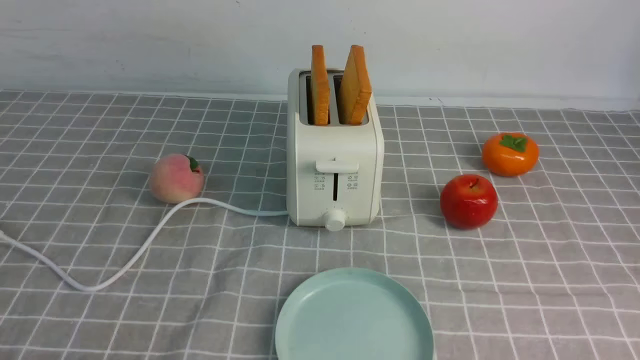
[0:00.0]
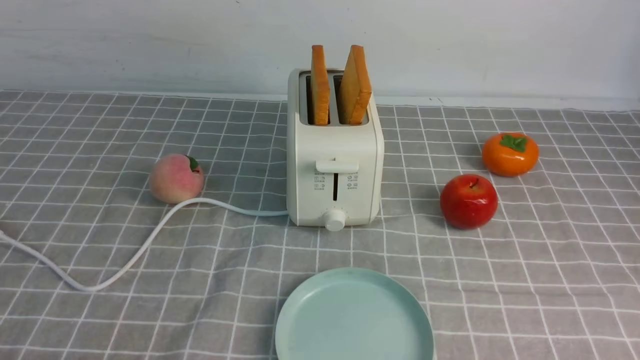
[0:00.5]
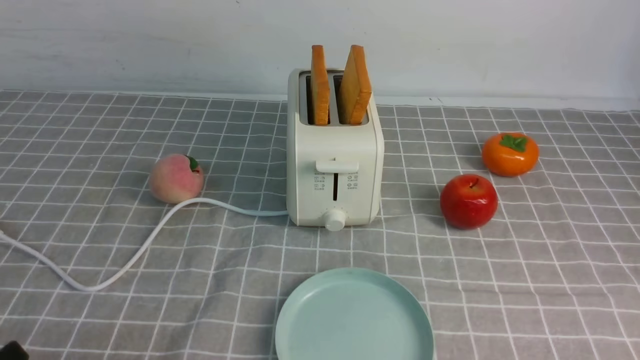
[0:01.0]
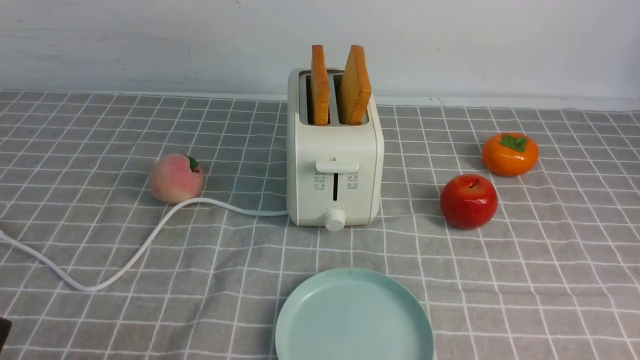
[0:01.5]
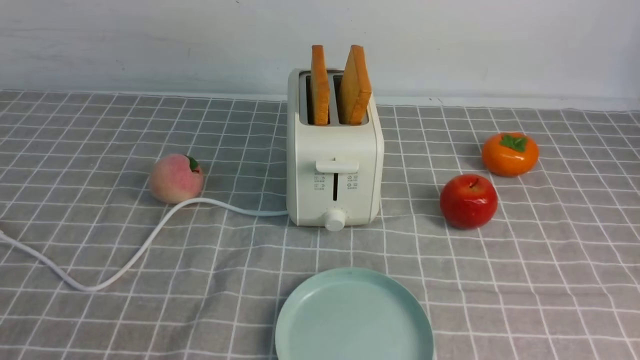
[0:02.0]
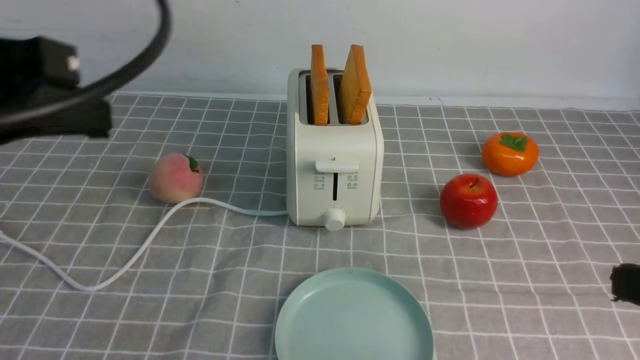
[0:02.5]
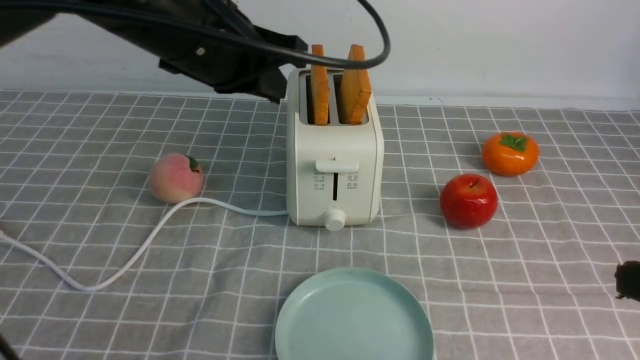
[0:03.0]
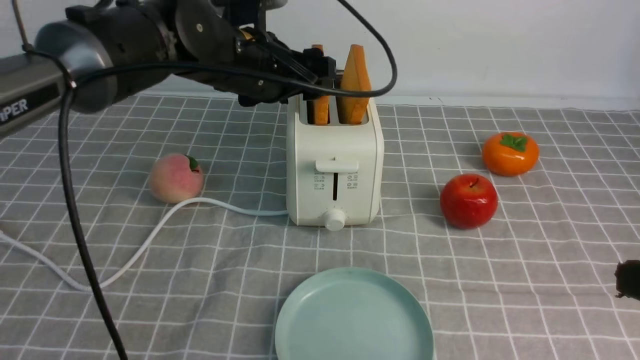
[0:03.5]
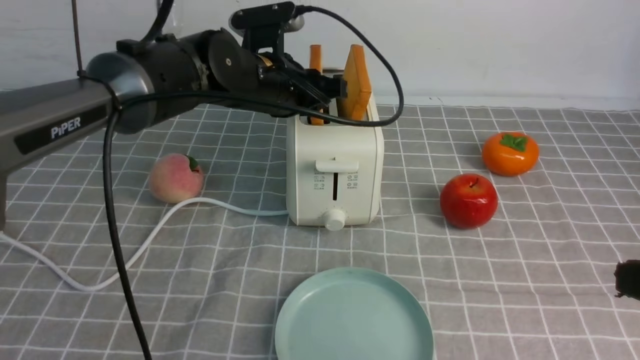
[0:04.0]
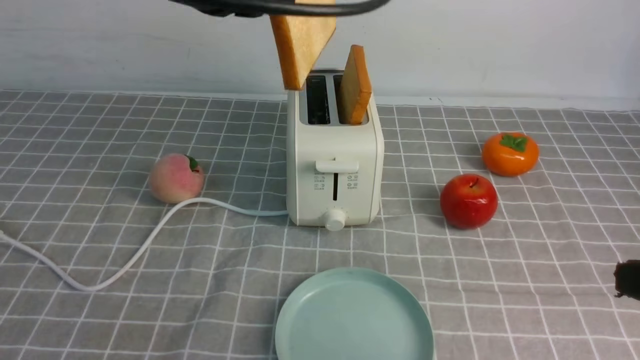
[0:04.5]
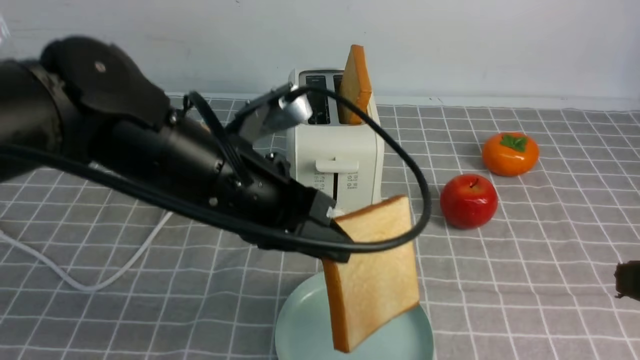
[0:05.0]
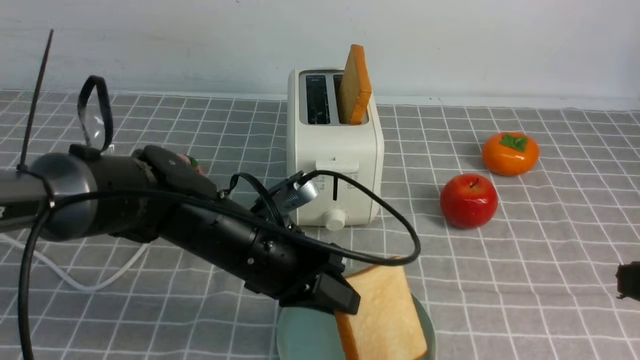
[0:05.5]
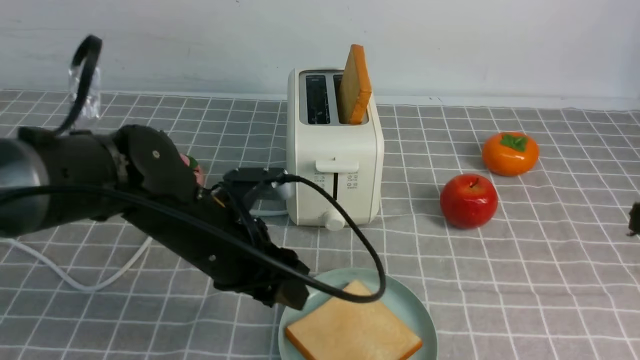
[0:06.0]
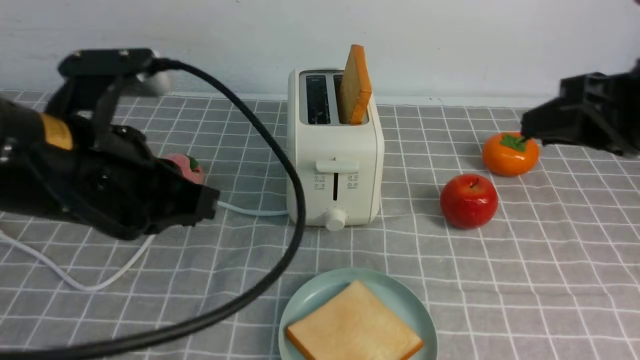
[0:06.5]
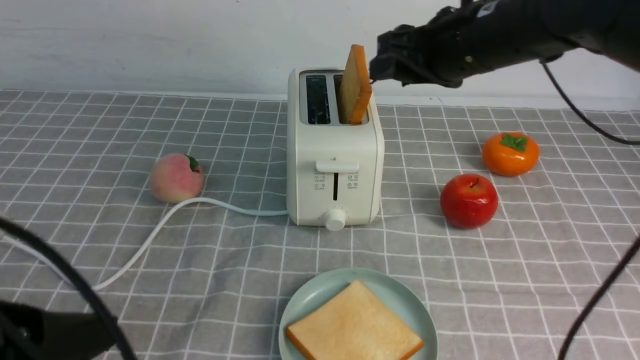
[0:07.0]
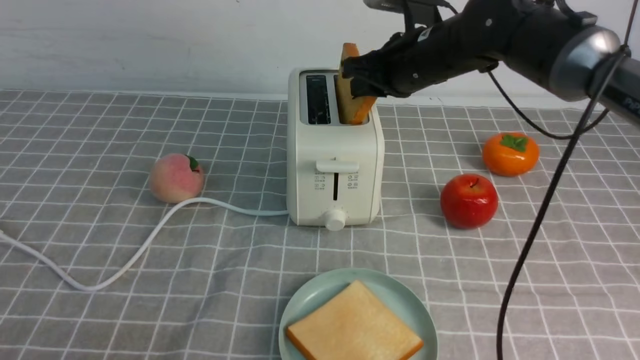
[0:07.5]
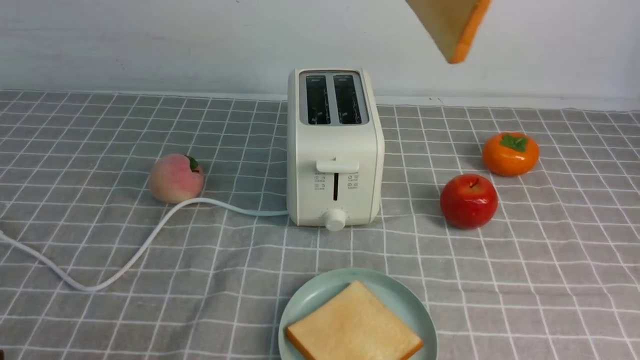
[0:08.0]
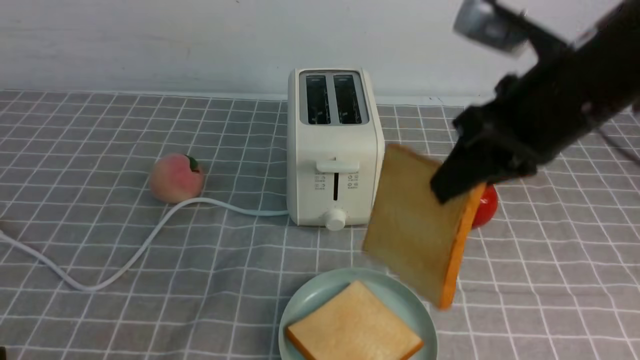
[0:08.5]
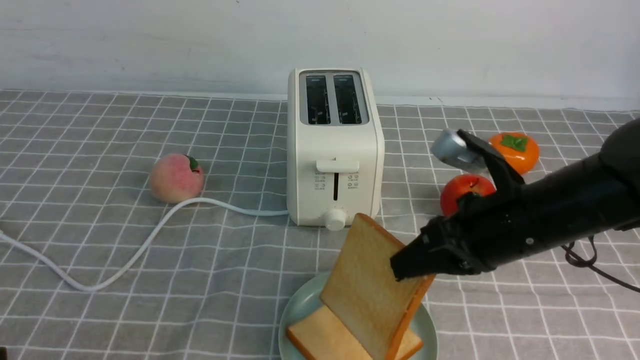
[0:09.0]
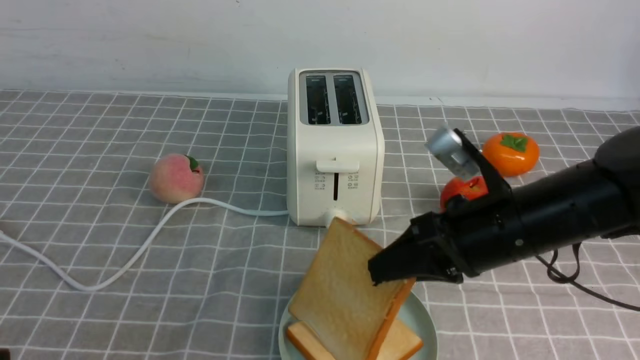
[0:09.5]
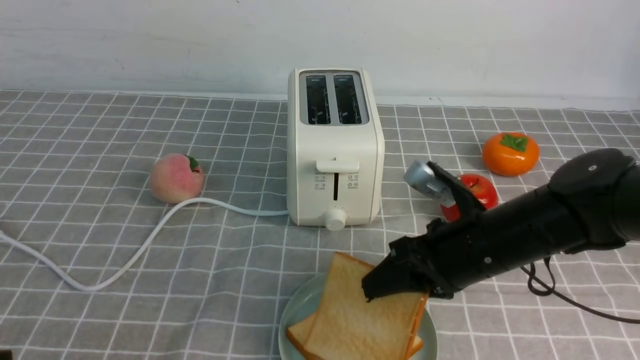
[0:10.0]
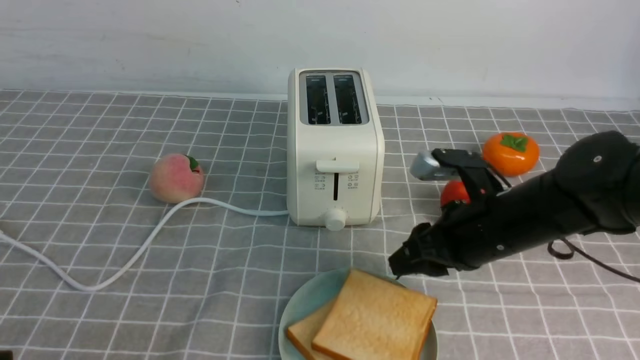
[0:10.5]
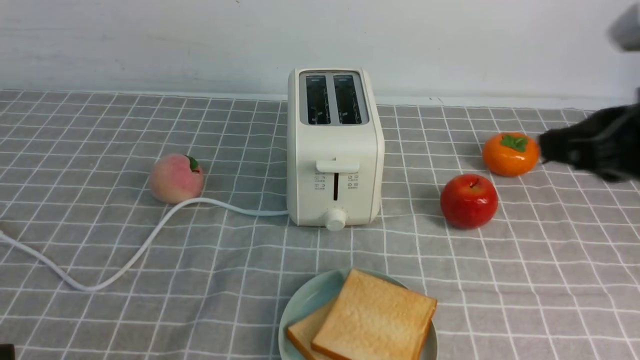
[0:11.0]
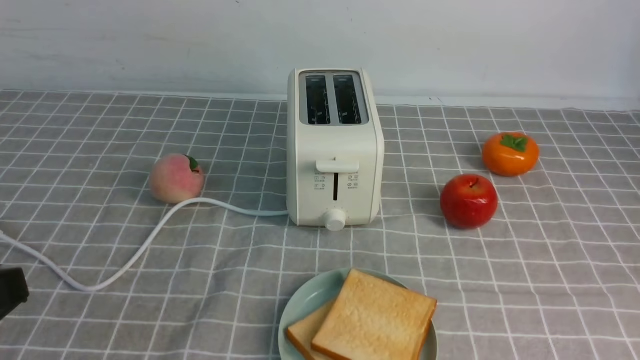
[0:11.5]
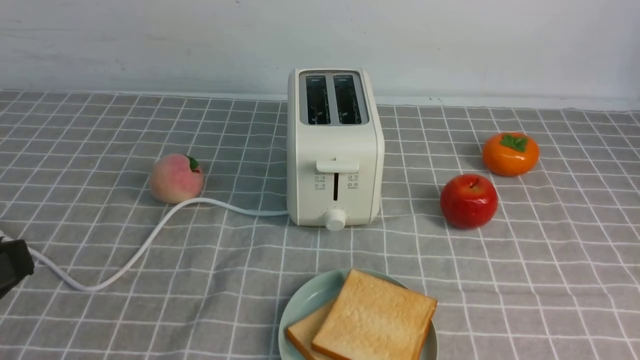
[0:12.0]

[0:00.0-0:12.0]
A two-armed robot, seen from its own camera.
Task of the whole recording: take toasted bread from bread machine on grey coffee table place on plate.
Step, 0:00.0 to 0:04.0: use the left arm to take out a slice of bread.
Step, 0:04.5 to 0:06.0: use the left arm to put a slice of bread into the empty plate.
Step, 0:06.5 to 0:07.5: use the right arm to take out a slice of bread.
Step, 0:08.0 to 0:10.5: use the right arm to put a slice of bread into the plate.
0:02.0 to 0:04.0: The left gripper travels forward and to the right by about 40 cm, and opens up. Meanwhile the right gripper goes roughly 5 cm forward.
0:04.0 to 0:06.0: The left gripper travels backward and downward by about 15 cm. Meanwhile the right gripper opens up.
0:06.0 to 0:08.0: The left gripper travels backward and to the left by about 25 cm, and closes its fingers. Meanwhile the right gripper heads forward, upward and to the left, covering some 25 cm, and opens, then closes again.
0:08.0 to 0:10.0: The right gripper goes approximately 25 cm downward, and opens its fingers.
0:10.0 to 0:12.0: The right gripper shifts roughly 30 cm backward and to the right, and closes.

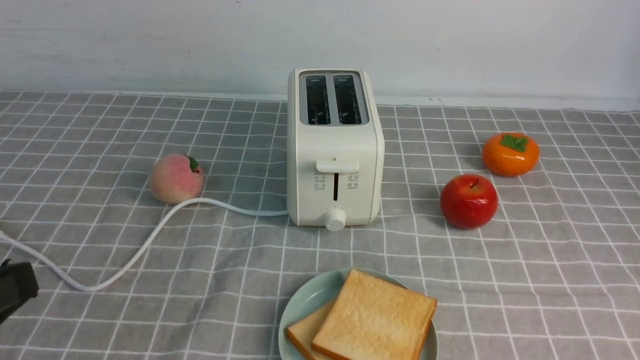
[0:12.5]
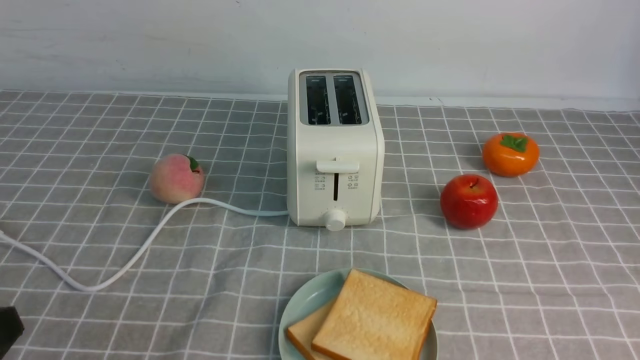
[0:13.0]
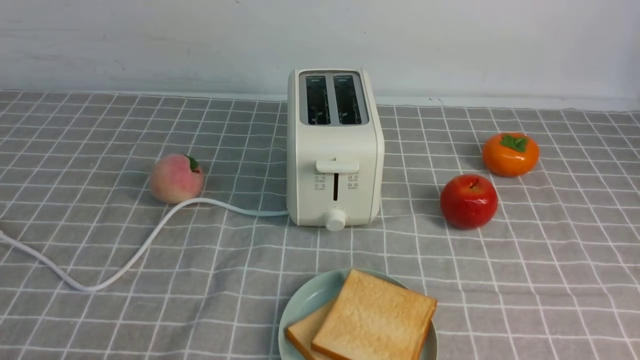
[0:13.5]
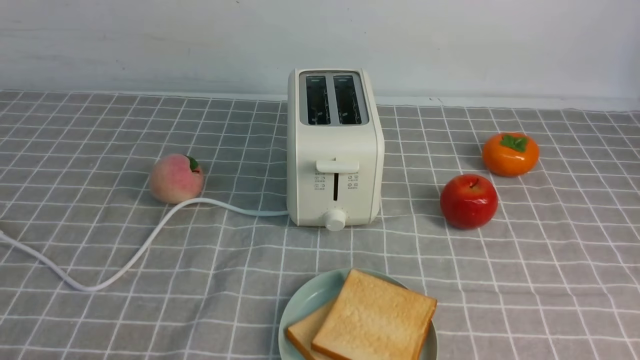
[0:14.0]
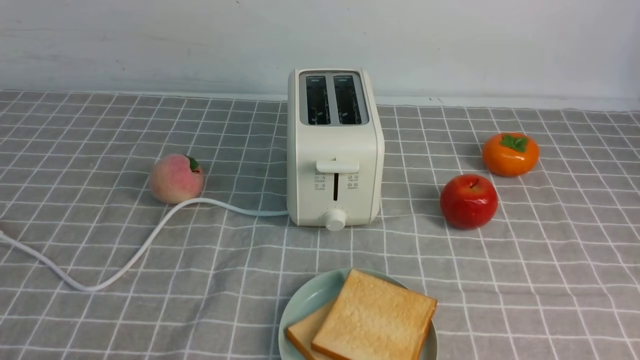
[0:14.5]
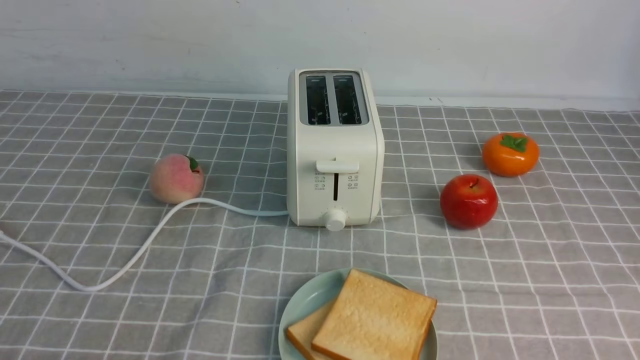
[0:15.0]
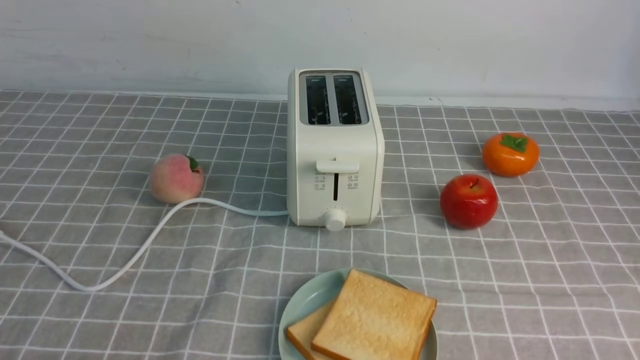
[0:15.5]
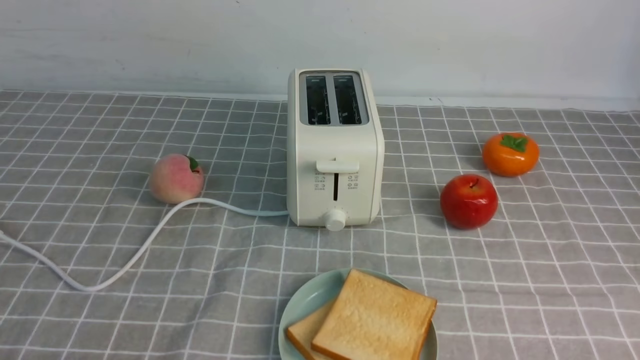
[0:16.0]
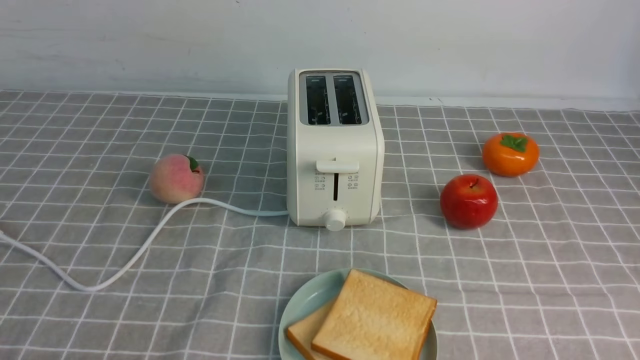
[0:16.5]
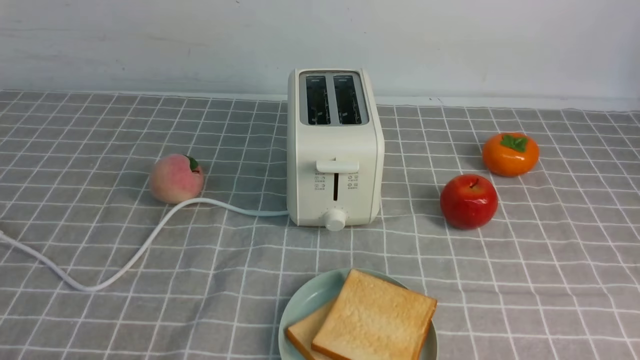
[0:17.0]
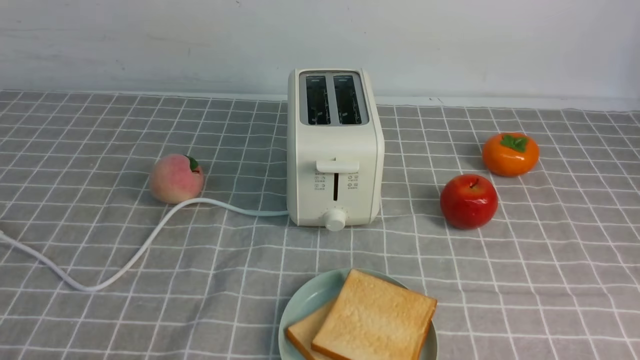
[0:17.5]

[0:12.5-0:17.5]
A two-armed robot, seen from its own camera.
Task of the whole recording: take toasted bread from bread machine on grey coffee table place on plate.
0:12.5 to 0:15.0: The left gripper moves downward, about 15 cm.

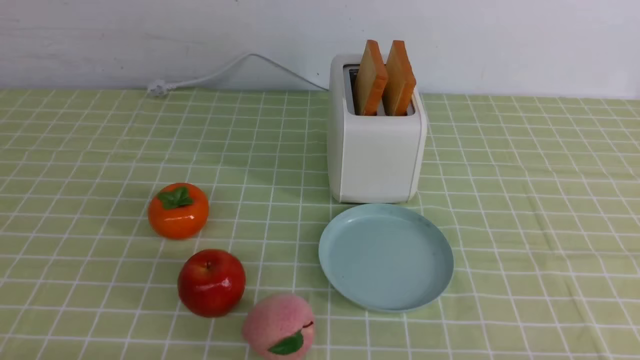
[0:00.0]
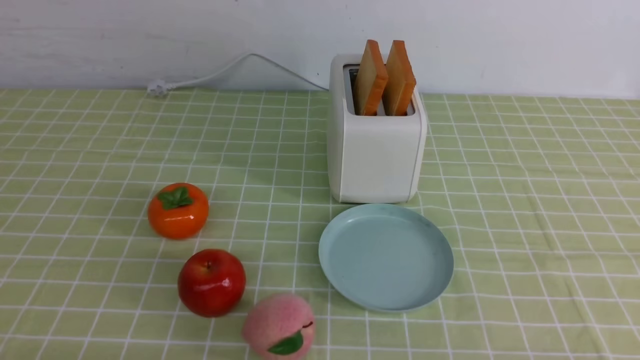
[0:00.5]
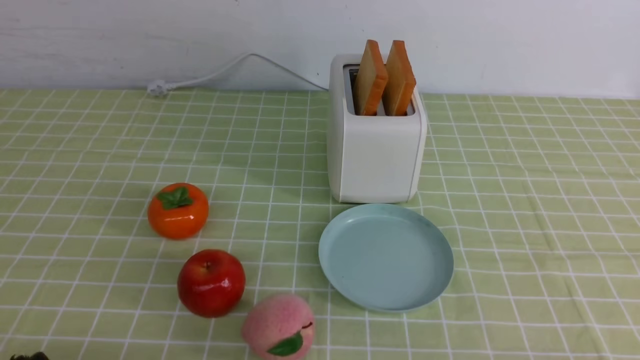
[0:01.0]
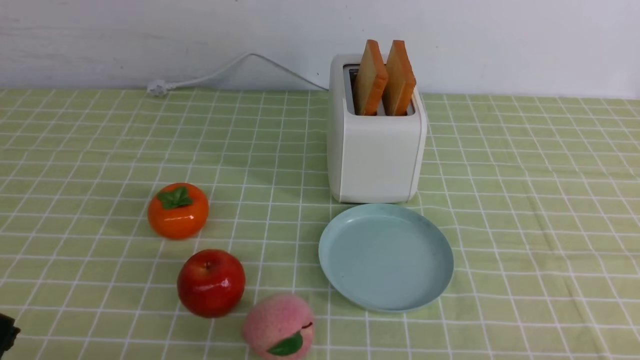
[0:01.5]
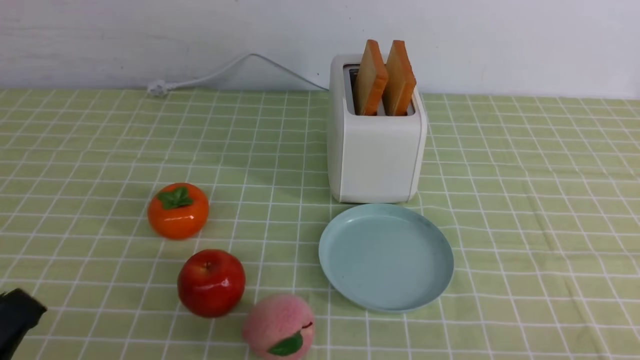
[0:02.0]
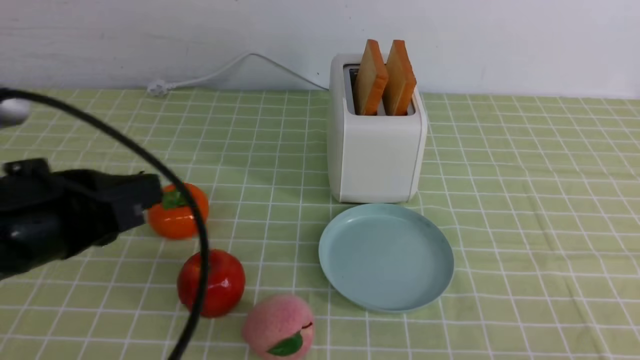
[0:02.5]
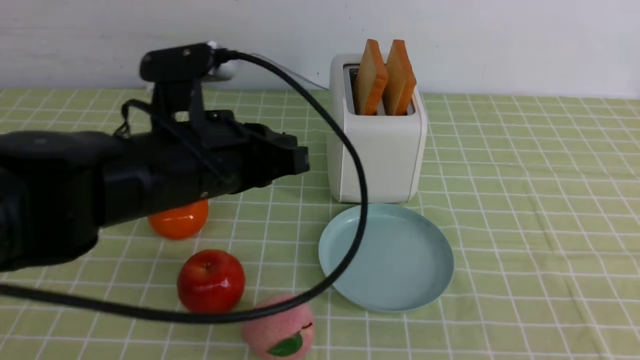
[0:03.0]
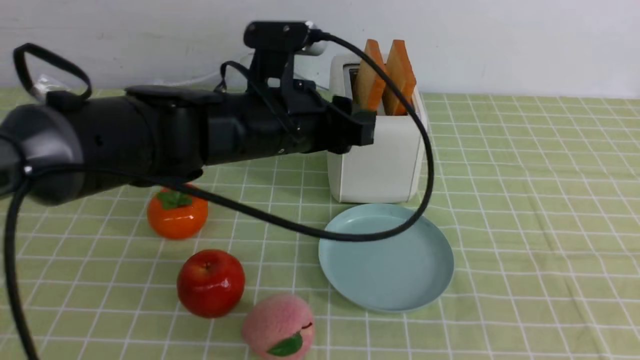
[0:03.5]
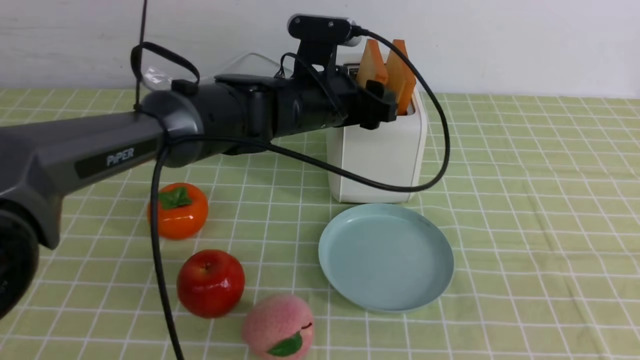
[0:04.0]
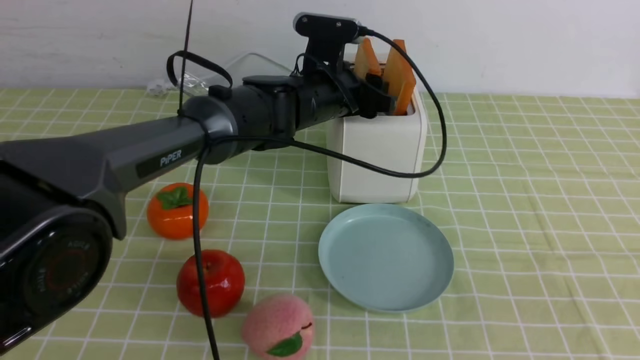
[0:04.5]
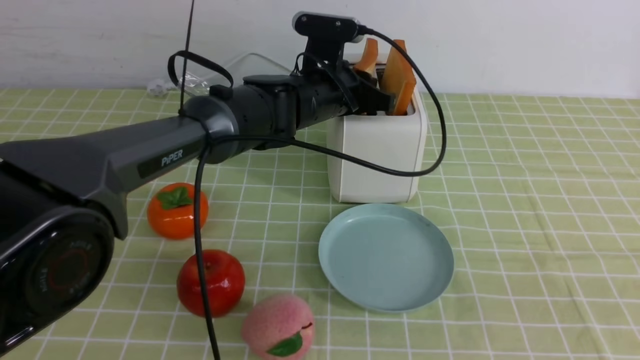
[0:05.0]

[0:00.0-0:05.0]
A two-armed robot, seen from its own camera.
Task of the whole recording: take toasted bread from bread machine on green coffee tablecloth place on plate.
0:00.0 to 0:02.5: The left gripper travels upward and forward by some 20 cm.
0:02.5 to 0:05.0: The left gripper travels forward and to the right by approximately 35 cm, and opens.
